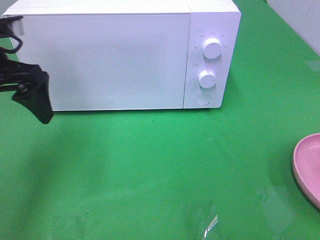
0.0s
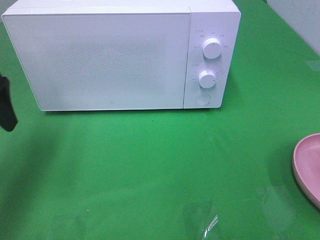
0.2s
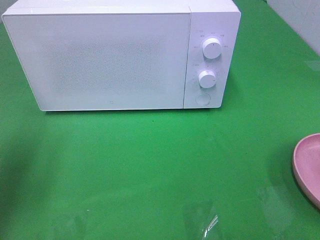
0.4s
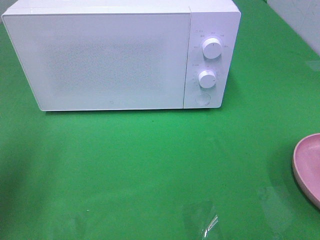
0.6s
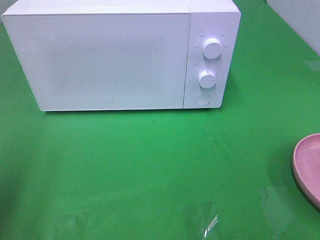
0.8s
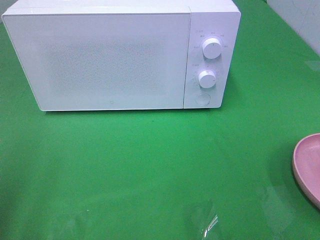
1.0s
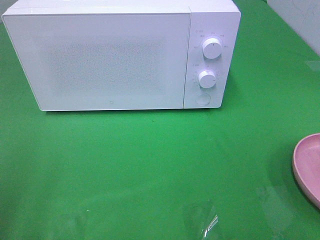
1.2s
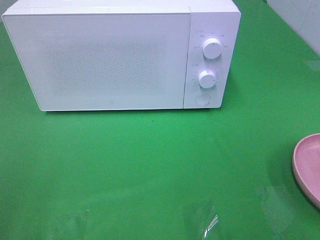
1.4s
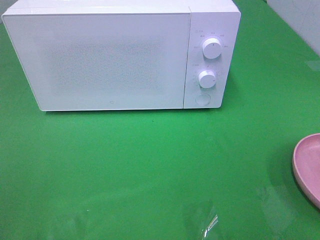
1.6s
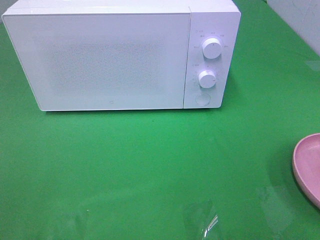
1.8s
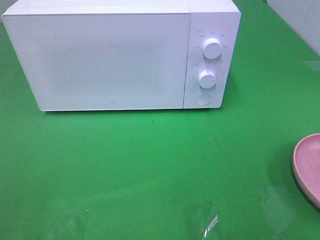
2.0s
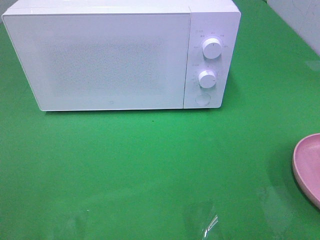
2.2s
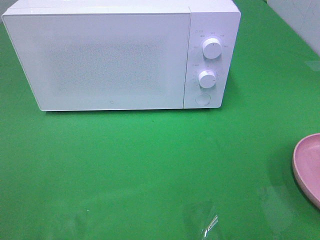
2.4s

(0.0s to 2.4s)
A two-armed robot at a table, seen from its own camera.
Task of the whole recording: Heat the burger.
0.0s - 1.2s: The left gripper moves backward, about 20 cm.

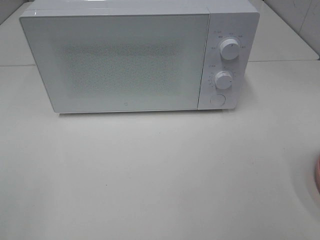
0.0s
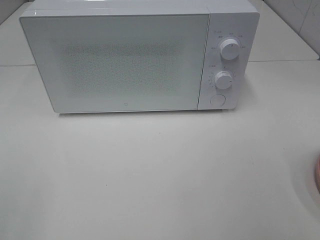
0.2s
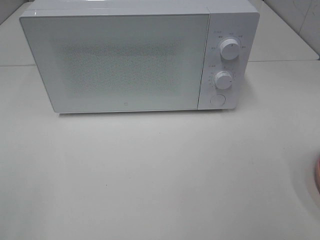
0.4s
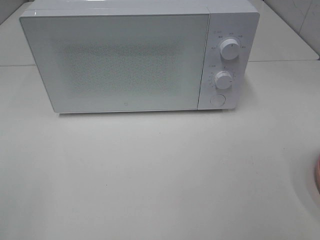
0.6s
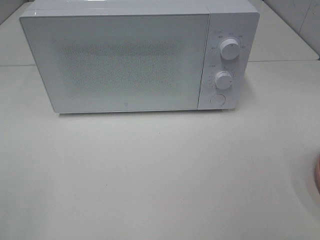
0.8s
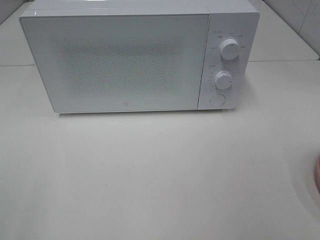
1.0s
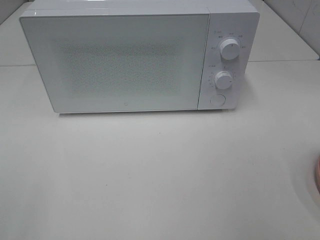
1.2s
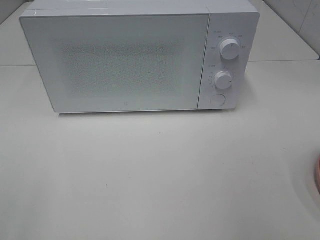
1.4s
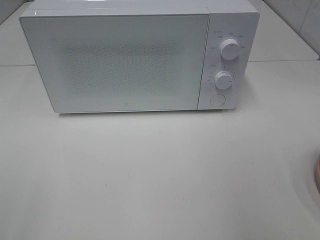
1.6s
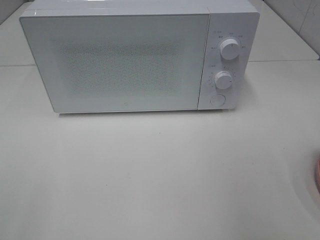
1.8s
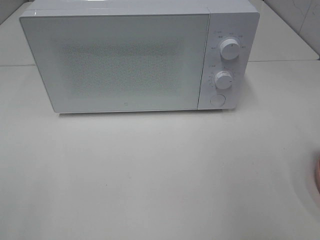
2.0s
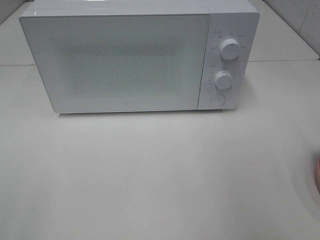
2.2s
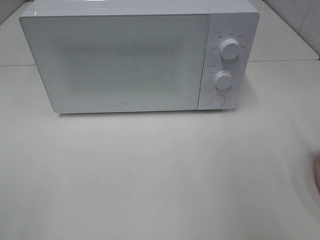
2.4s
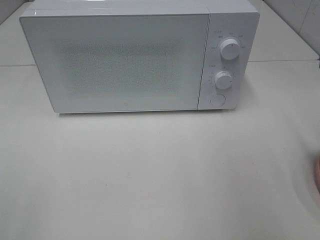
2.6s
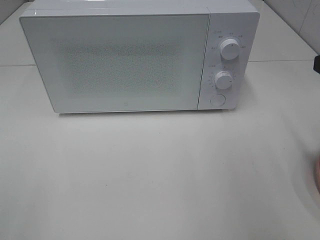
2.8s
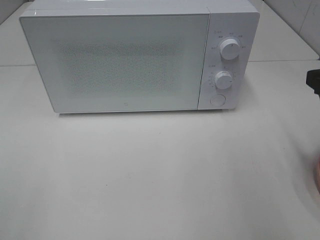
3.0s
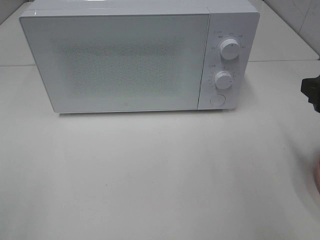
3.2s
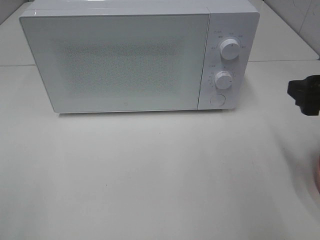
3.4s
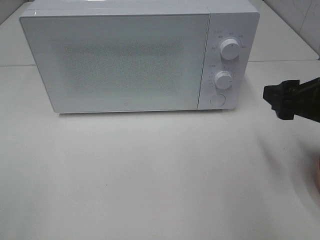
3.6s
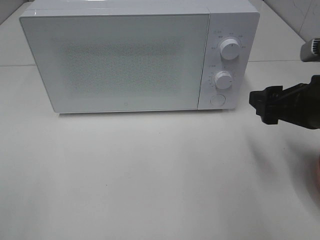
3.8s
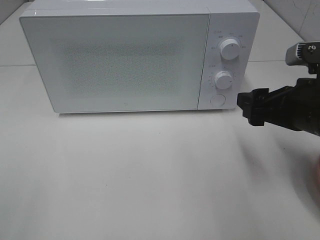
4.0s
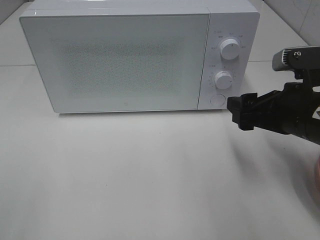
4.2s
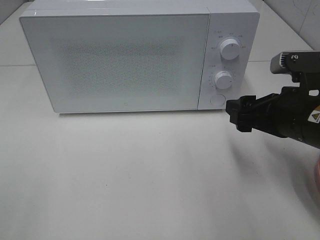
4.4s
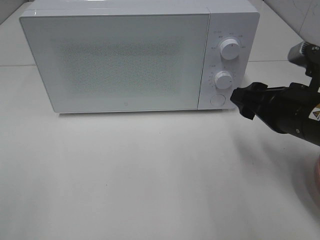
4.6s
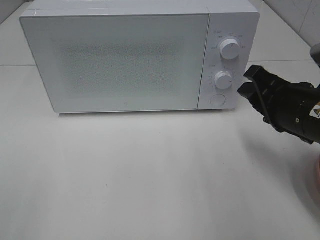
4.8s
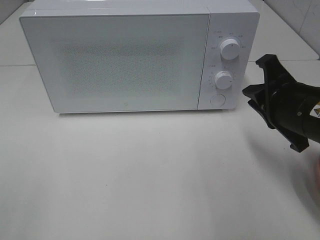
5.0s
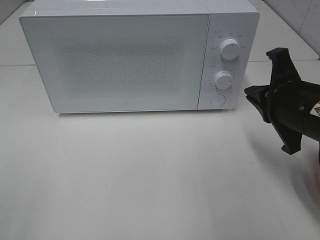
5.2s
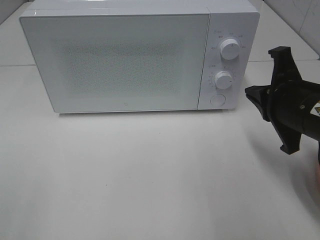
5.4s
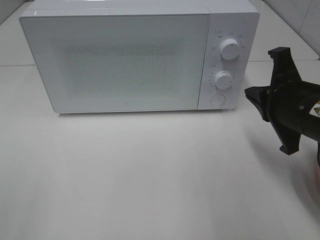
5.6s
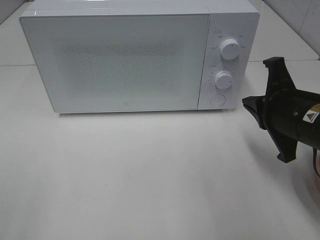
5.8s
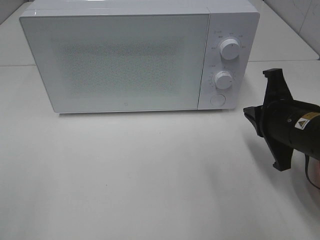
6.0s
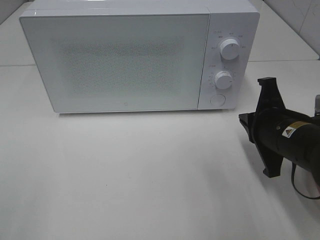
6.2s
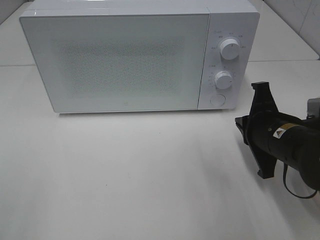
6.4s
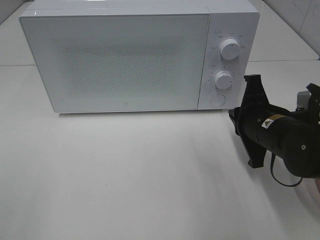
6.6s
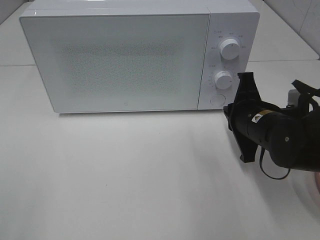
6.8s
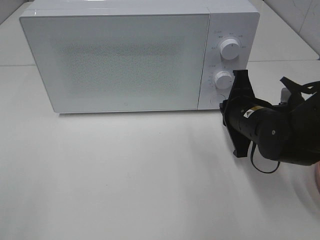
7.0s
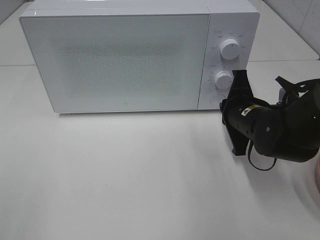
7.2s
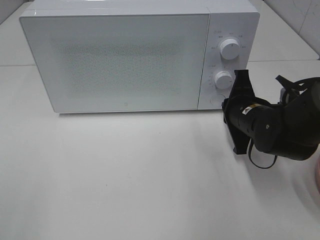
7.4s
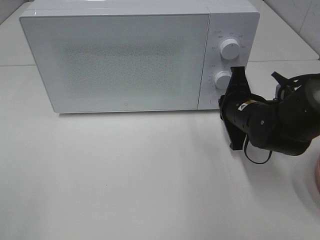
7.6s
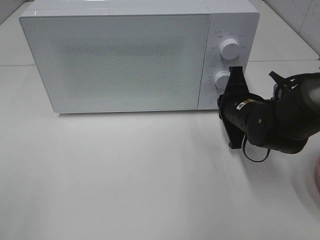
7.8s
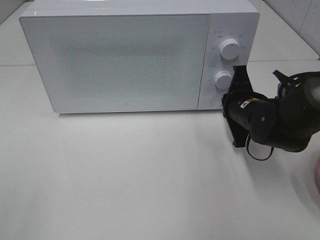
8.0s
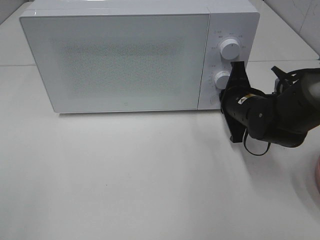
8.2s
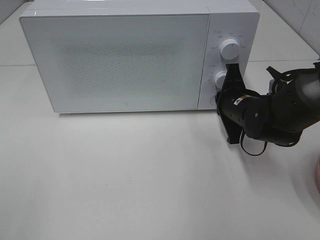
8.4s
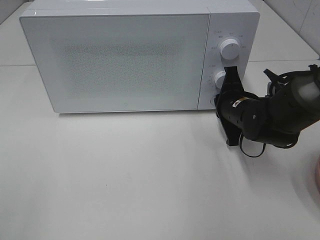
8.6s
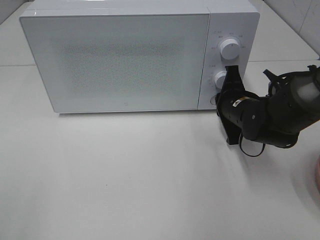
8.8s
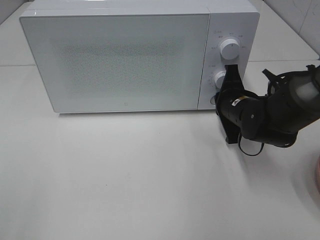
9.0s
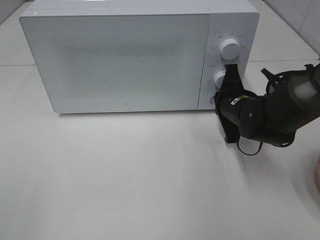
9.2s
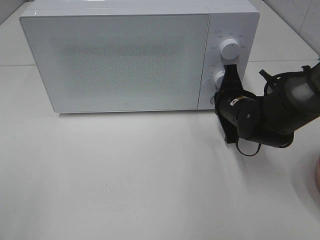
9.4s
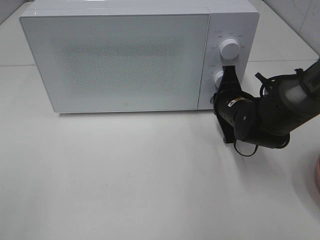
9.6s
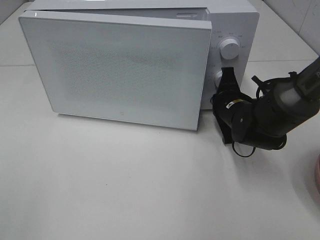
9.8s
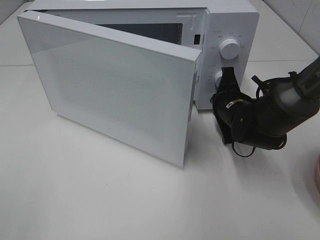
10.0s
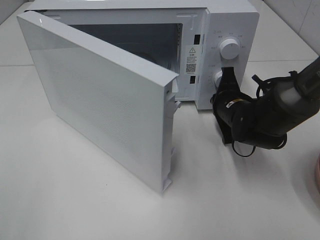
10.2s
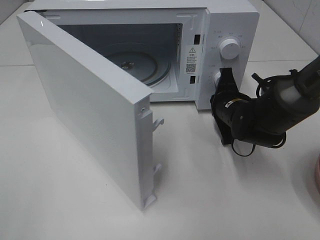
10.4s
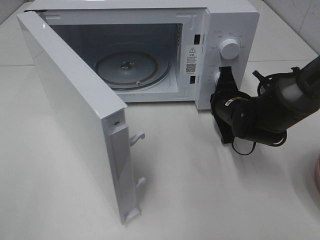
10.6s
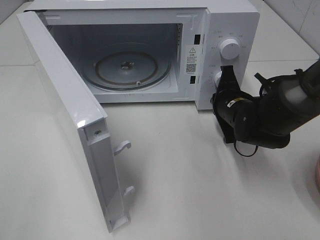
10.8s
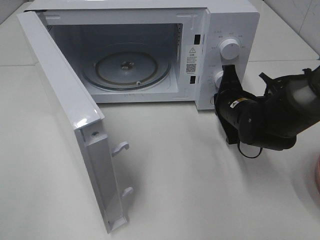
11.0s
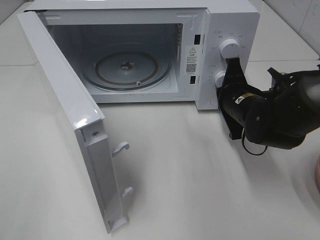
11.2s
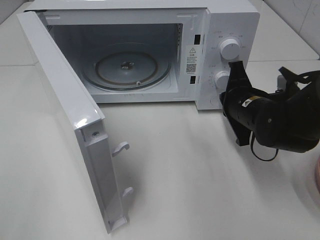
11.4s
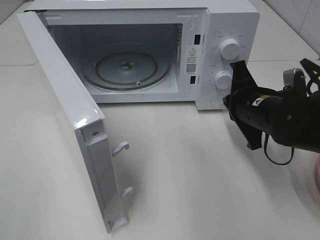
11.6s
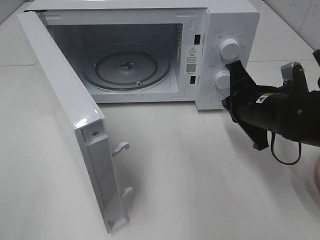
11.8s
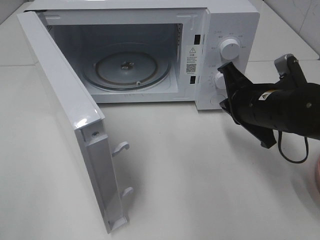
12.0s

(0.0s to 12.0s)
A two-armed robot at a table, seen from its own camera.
Task of the whole recording: Heat the burger.
Step, 0.0s - 11.2s: Right hand: press the switch.
1.6s - 3.0s: The right gripper heads forward and downward, covering about 10 cm.
3.0s - 4.4s: The right gripper shifts about 10 cm to the left and downward.
4.4s - 6.0s: The right gripper closes up.
6.0s - 7.6s: The right gripper is displaced forward and downward by approximately 10 cm.
7.6s - 9.0s: The grippers stay close to where they were, moving slightly.
10.4s - 12.0s: The right gripper travels backward and upward by roughly 10 cm.

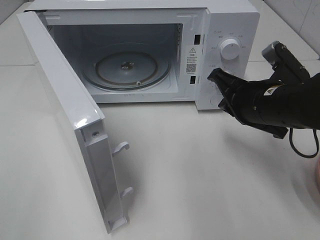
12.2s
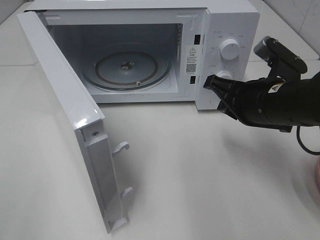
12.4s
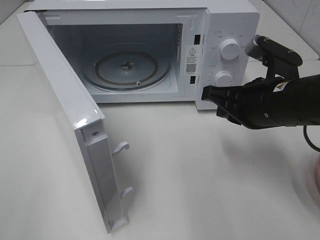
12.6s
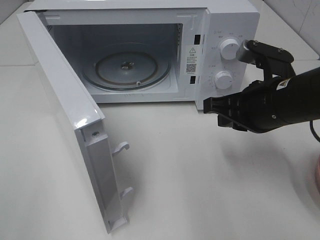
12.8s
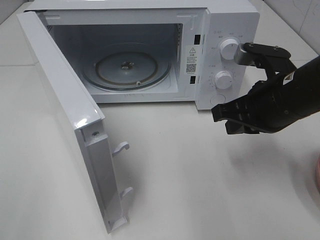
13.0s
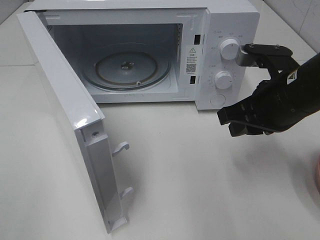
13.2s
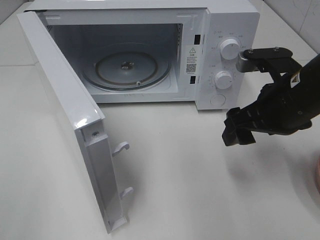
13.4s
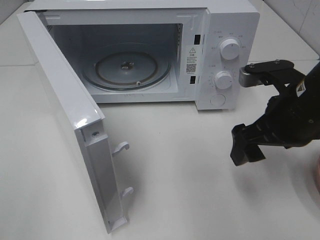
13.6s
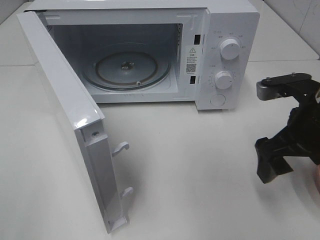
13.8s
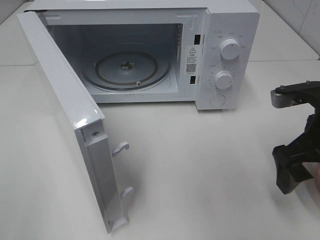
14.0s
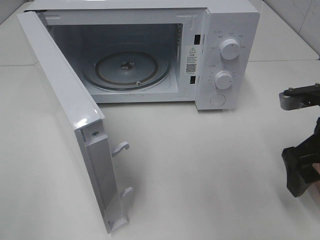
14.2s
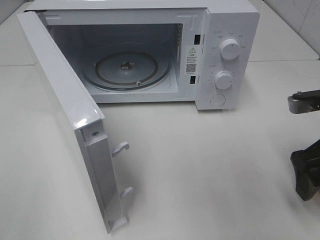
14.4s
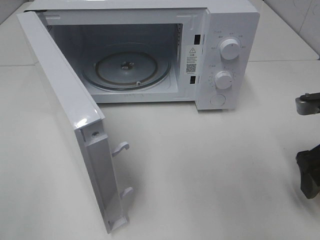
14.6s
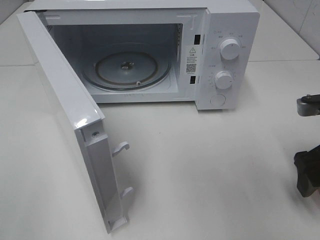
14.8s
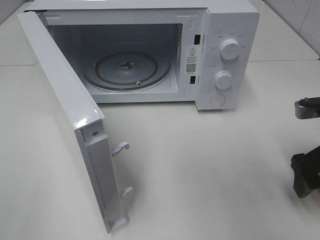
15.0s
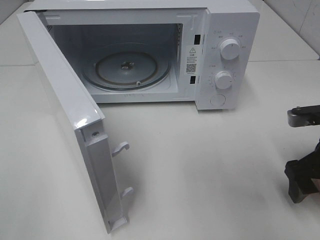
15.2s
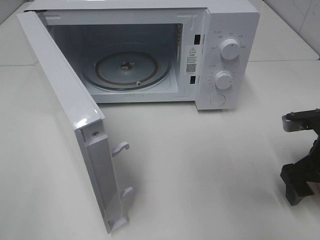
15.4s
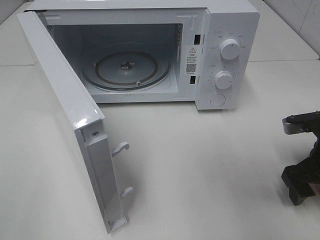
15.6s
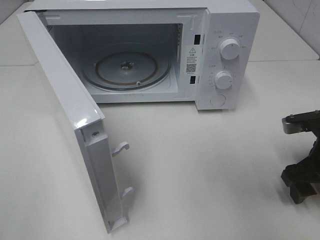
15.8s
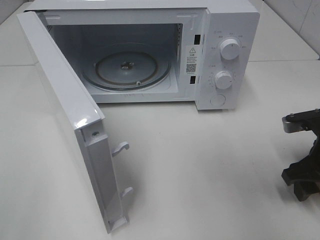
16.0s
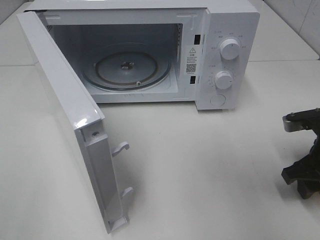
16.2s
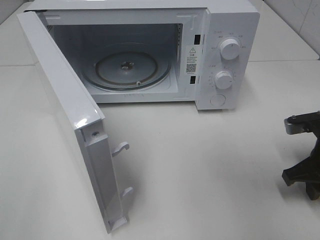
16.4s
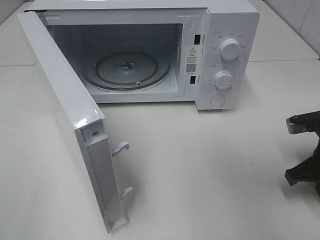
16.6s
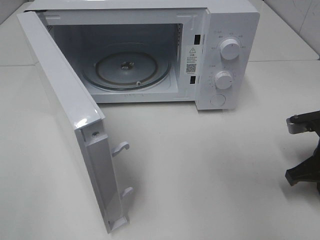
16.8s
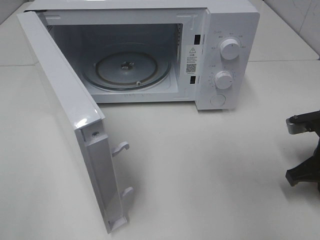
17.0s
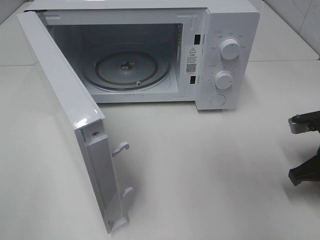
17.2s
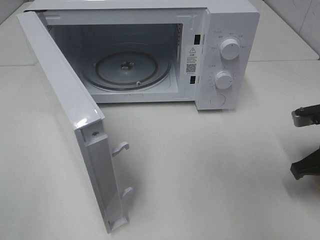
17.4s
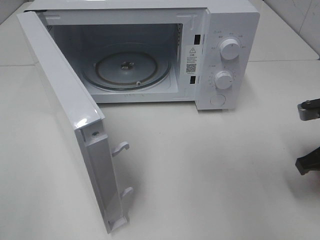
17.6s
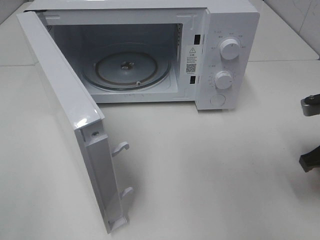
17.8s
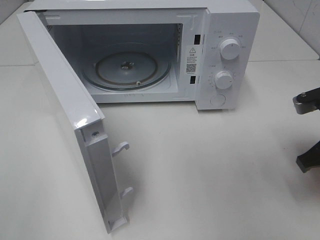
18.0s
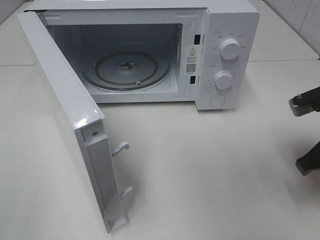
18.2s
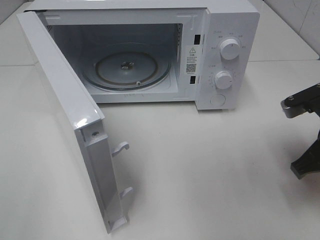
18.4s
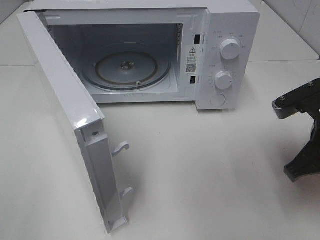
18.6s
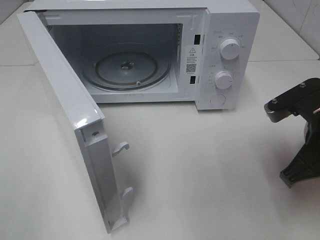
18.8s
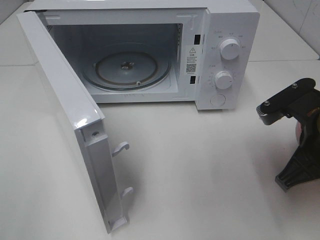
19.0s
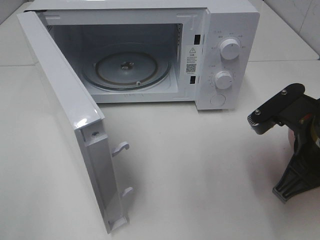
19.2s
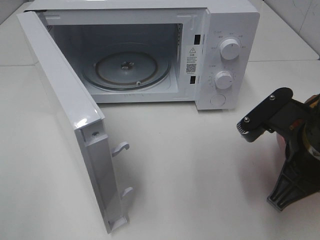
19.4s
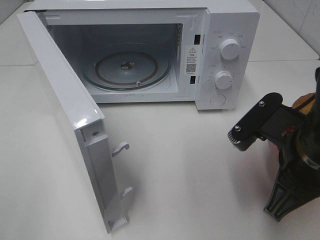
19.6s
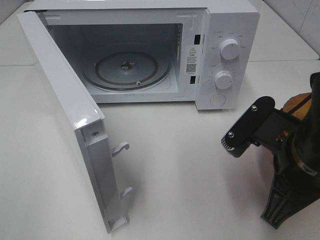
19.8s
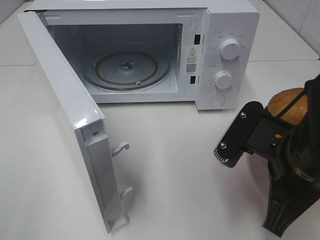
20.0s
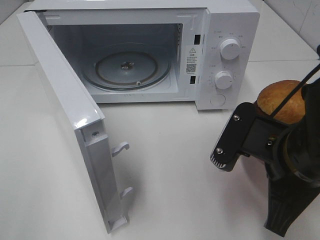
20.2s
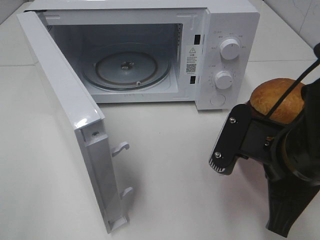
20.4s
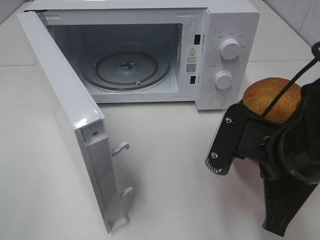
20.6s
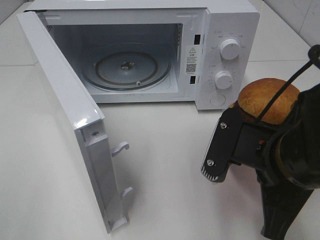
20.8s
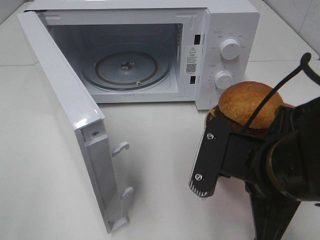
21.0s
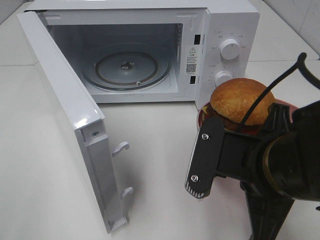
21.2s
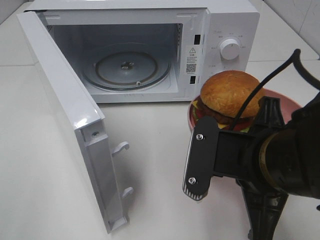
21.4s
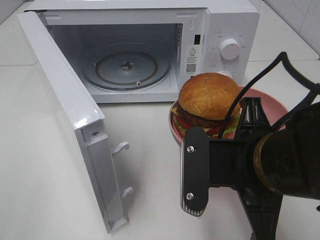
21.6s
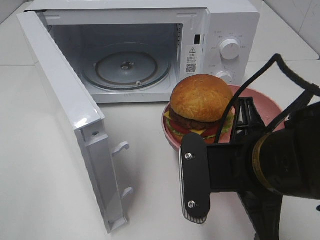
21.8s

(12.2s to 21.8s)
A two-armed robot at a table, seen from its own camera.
Task of the whole recording: Heat the burger.
Step, 12.2s - 17.2s: Right hand: grab the plate with the hamburger.
12.2s - 13.8s: The right gripper heads to the right, covering about 5 cm, and opens.
13.8s - 15.4s: The right gripper shifts approximately 10 cm downward and to the right.
15.4s - 17.0s: The right gripper closes.
17.0s - 18.6s: The right gripper goes approximately 10 cm upward and to the left.
18.6s - 20.2s: The right gripper moves to the left and backward, approximately 10 cm.
